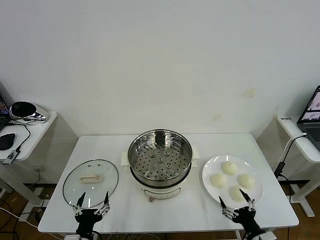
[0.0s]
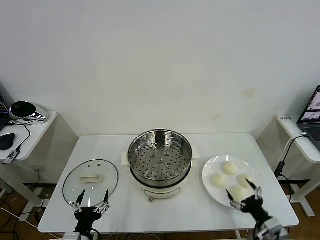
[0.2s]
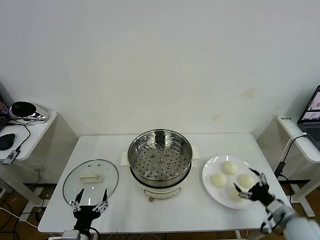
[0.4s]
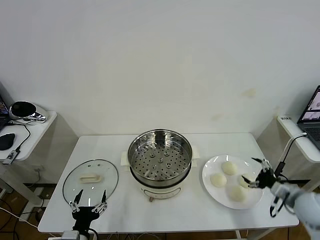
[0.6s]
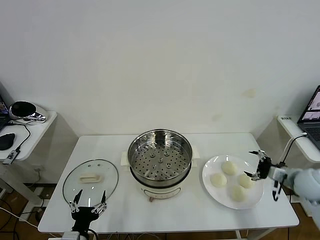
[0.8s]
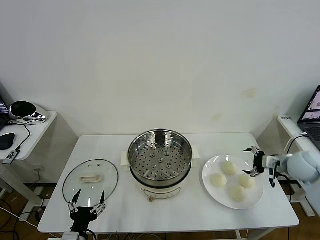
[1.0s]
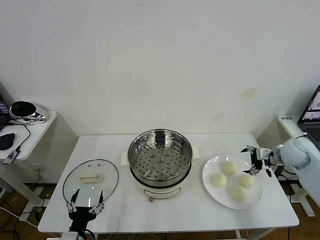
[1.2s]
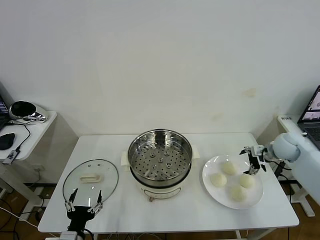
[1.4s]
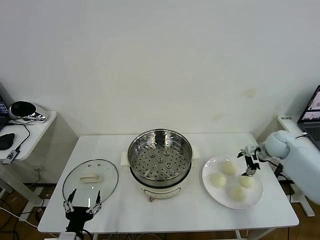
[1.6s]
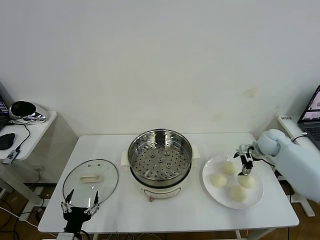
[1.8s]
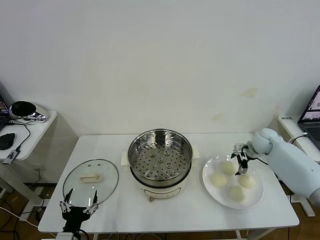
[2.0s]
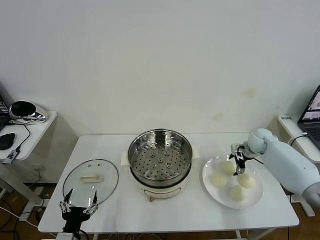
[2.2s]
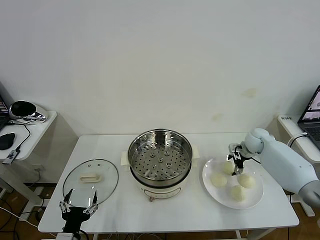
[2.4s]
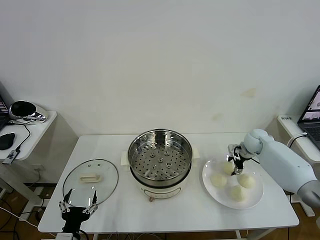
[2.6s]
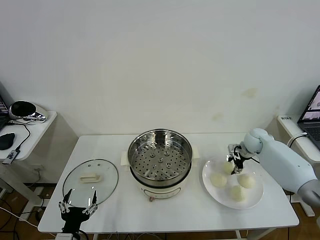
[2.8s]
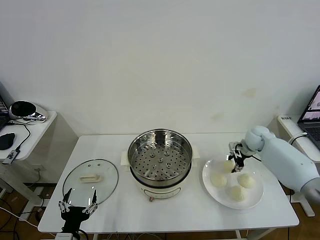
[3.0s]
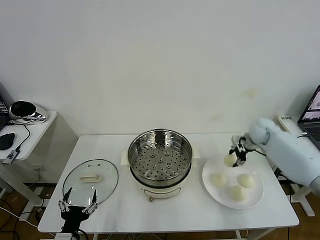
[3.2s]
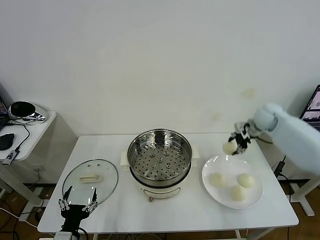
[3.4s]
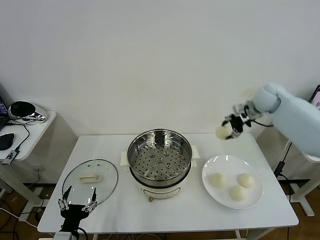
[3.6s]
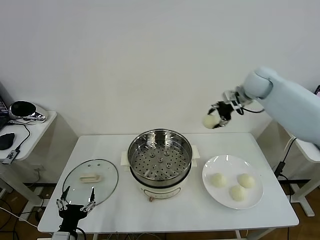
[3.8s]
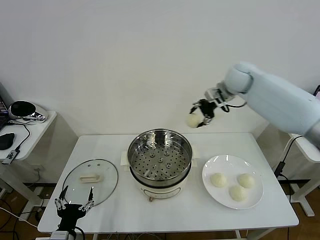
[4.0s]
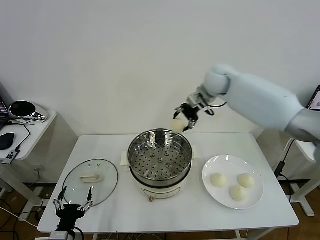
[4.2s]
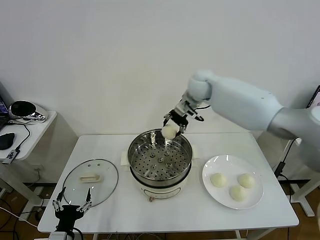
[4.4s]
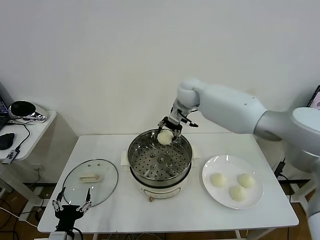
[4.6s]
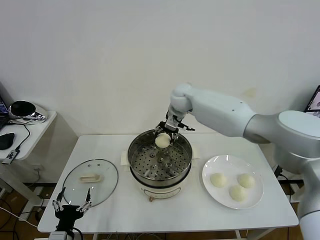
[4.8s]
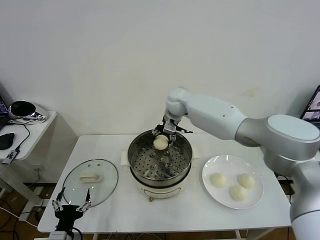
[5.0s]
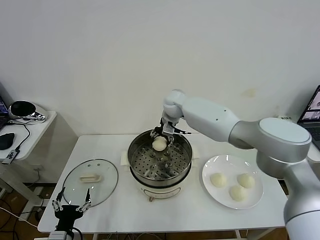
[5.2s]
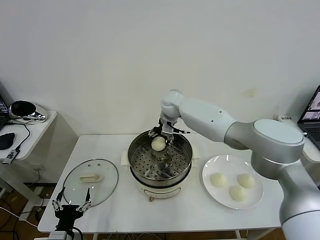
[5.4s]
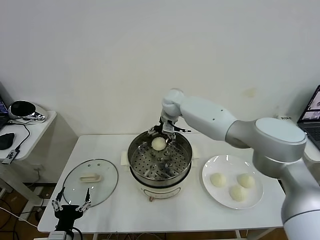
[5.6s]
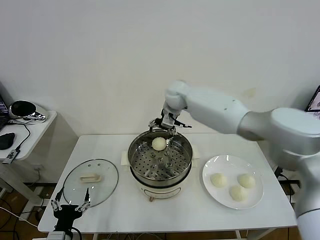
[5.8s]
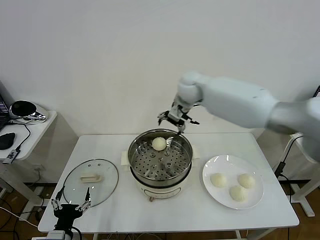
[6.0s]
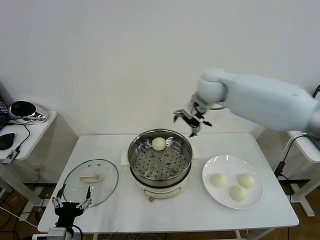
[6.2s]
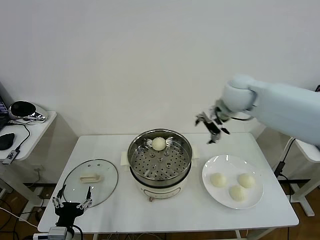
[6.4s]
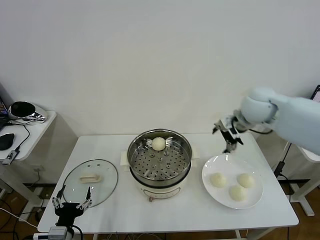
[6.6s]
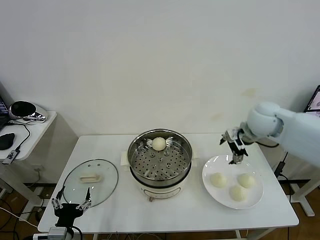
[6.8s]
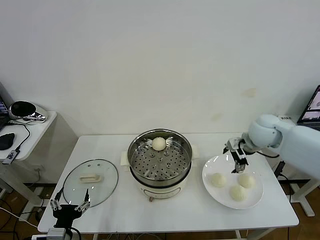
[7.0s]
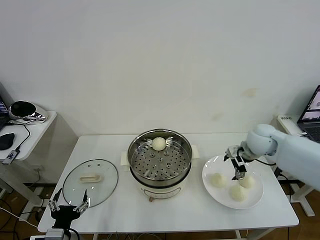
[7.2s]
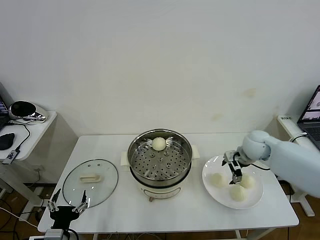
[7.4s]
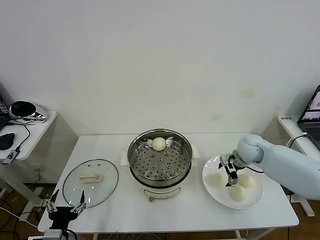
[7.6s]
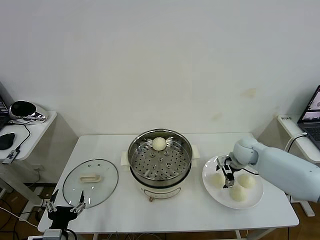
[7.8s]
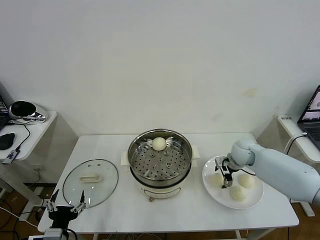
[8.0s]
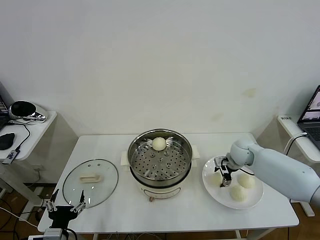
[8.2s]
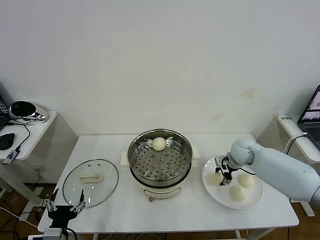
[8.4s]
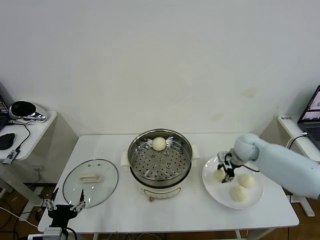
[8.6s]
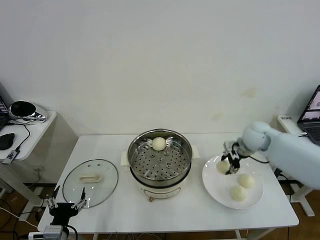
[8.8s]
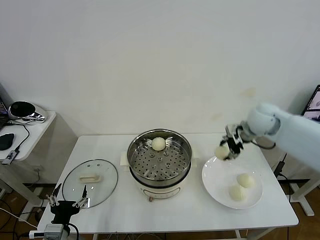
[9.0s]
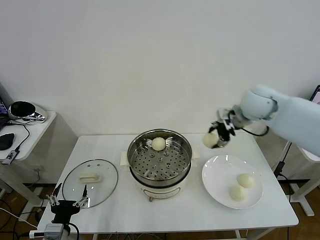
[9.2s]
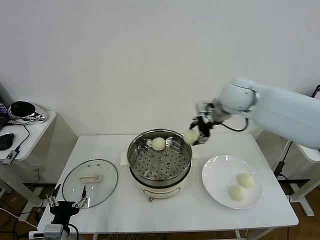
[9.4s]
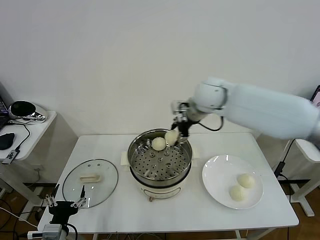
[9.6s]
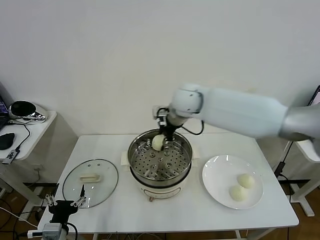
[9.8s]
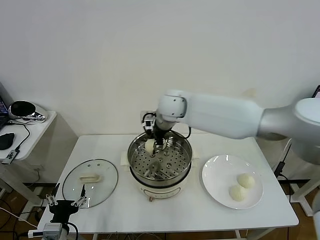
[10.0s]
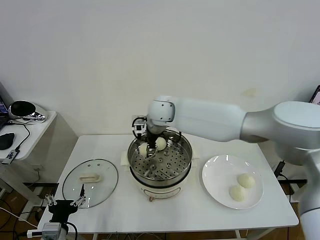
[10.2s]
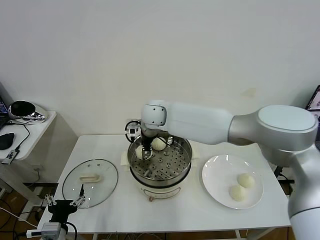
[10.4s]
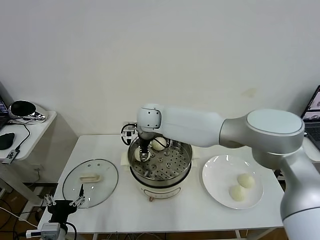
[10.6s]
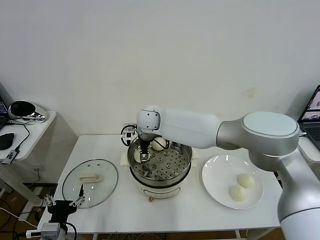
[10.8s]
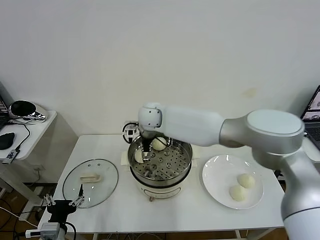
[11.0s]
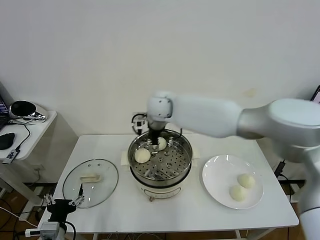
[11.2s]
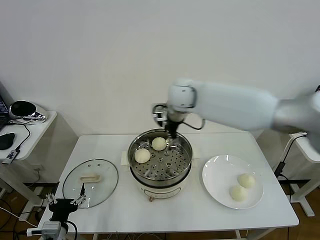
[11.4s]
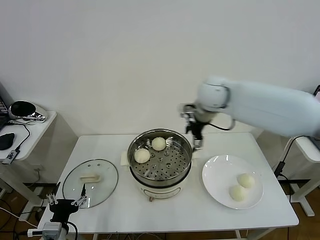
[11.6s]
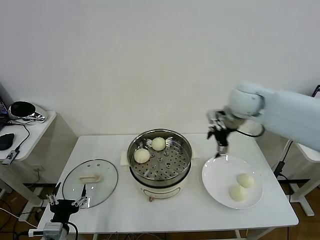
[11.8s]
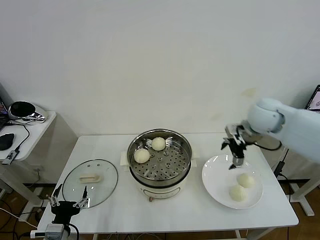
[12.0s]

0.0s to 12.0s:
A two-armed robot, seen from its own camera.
Task of the whole recording: take steamed baozi put them in steamer then cover it.
Step, 0.0s to 2.6s: Grasp the baozi in the plate with right gripper.
Step, 2.8s to 5.6s: Place the baozi on the steamer with right gripper.
Step, 5.8s to 8.2s: Grasp the baozi in the plate with right gripper.
Step, 8.4s to 11.0s: Place the baozi on the steamer with right gripper.
1.6s to 3.0s: The right gripper moves forward, approximately 5 cm, and closes.
3.0s to 4.4s: The right gripper heads to the left and upward, covering about 35 cm.
4.4s to 6.0s: The right gripper reaches some 10 cm downward, then returns, and opens.
6.0s to 7.6s: The right gripper shifts some 30 cm to the right, downward and backward.
7.6s to 9.0s: The right gripper travels upward by about 15 cm, and closes.
9.0s to 10.4s: The right gripper is displaced to the left by approximately 35 cm.
10.4s to 12.0s: The right gripper moves to the right, some 35 cm, and opens.

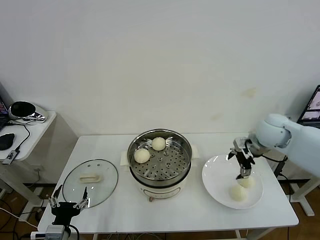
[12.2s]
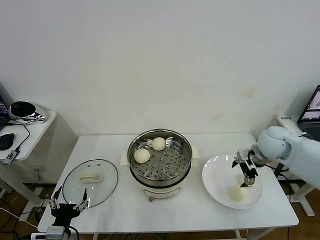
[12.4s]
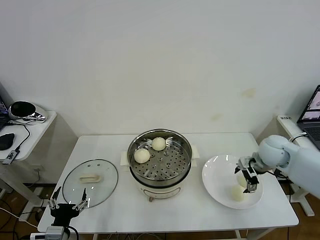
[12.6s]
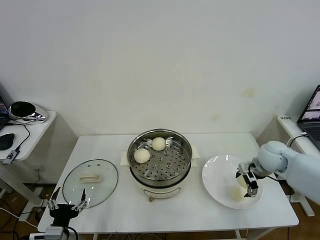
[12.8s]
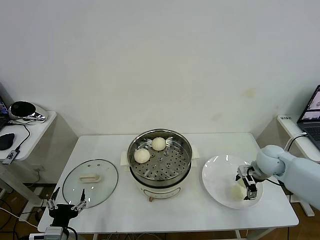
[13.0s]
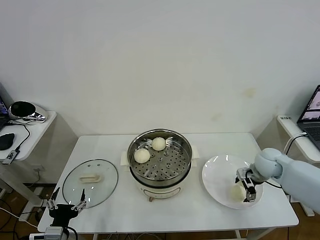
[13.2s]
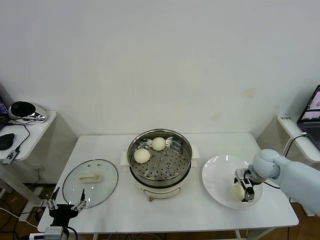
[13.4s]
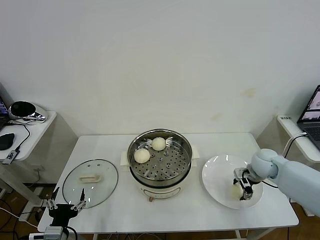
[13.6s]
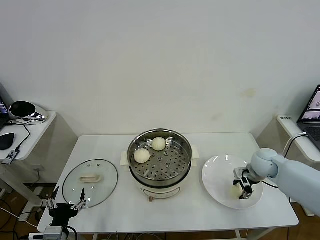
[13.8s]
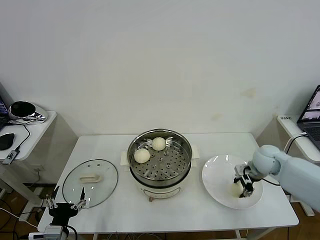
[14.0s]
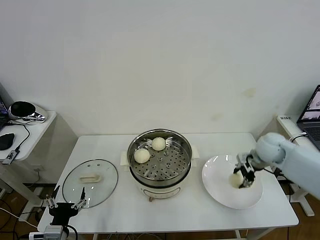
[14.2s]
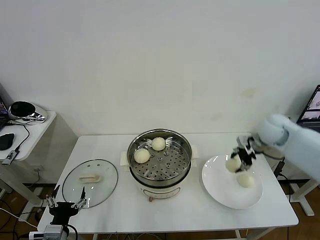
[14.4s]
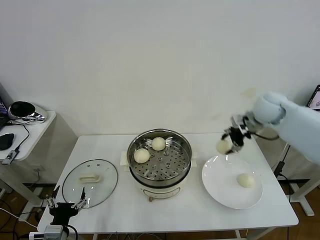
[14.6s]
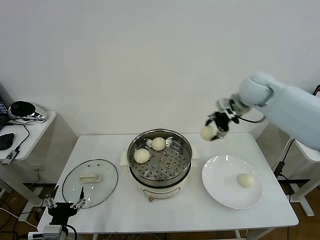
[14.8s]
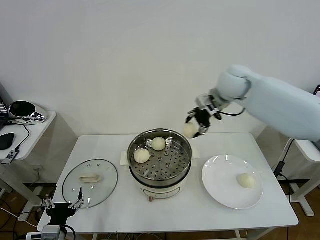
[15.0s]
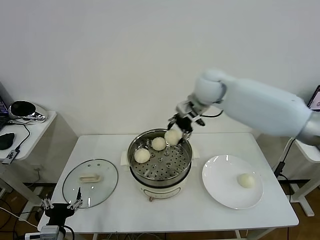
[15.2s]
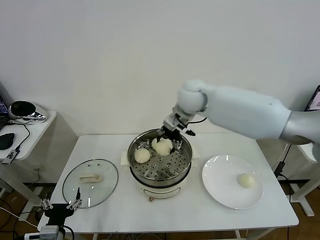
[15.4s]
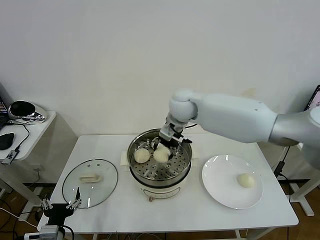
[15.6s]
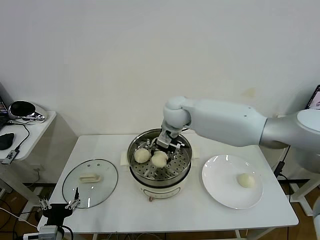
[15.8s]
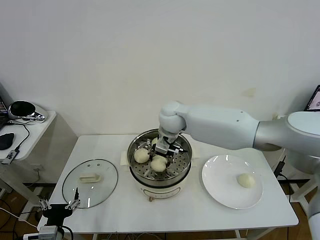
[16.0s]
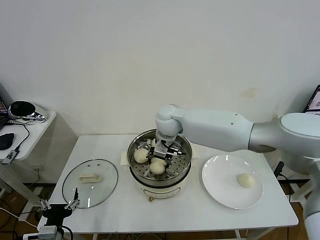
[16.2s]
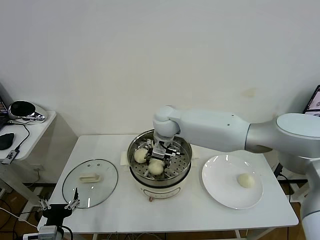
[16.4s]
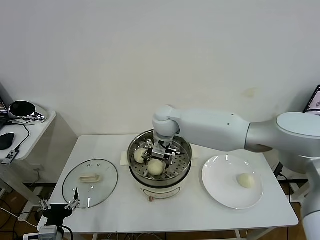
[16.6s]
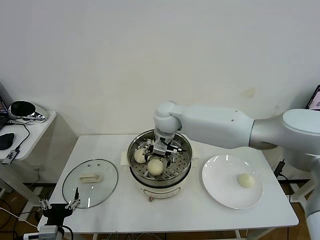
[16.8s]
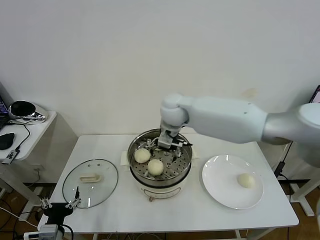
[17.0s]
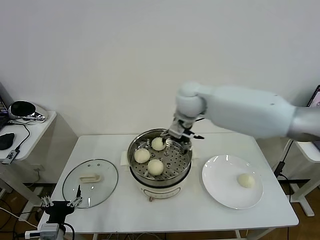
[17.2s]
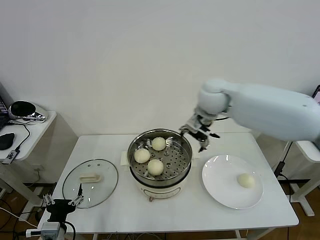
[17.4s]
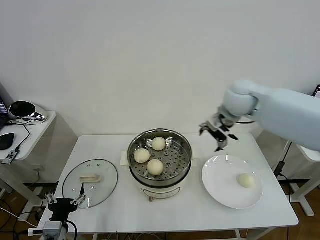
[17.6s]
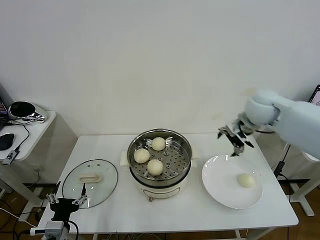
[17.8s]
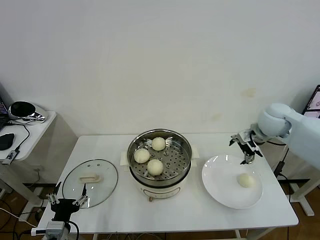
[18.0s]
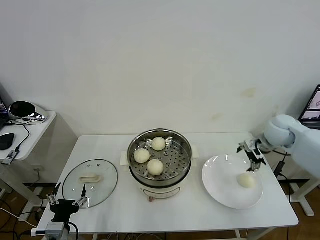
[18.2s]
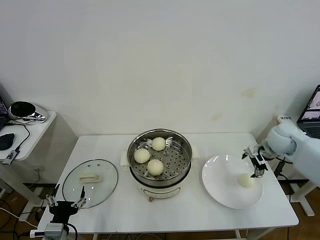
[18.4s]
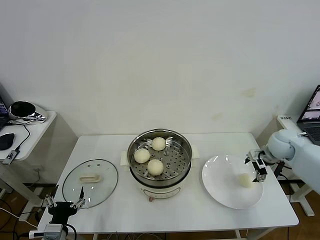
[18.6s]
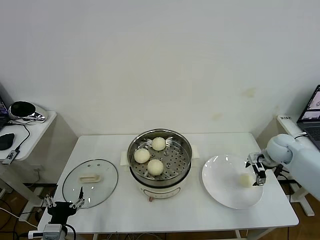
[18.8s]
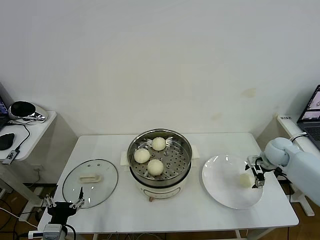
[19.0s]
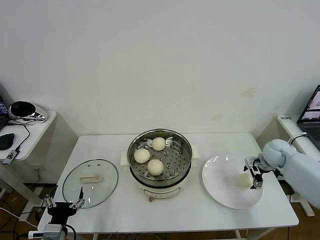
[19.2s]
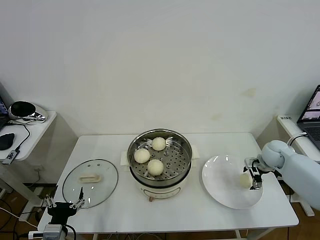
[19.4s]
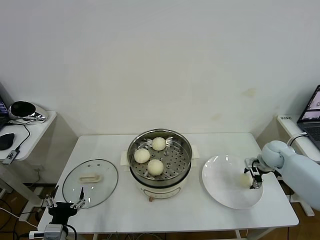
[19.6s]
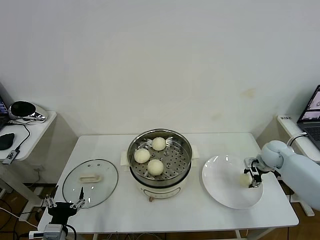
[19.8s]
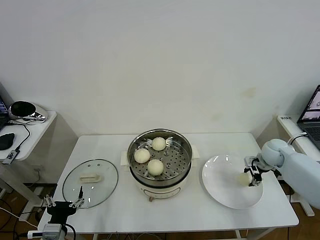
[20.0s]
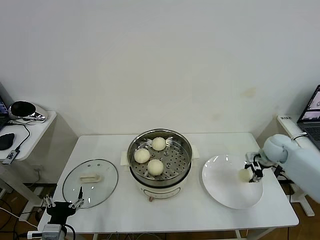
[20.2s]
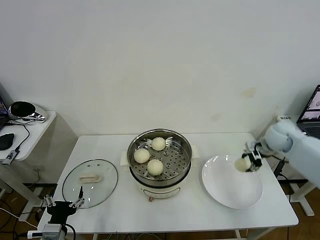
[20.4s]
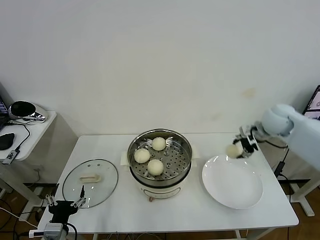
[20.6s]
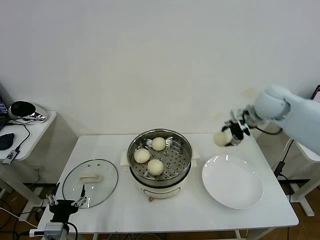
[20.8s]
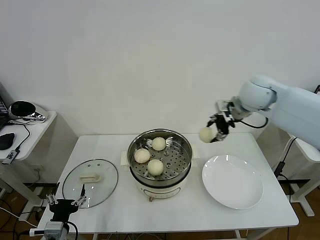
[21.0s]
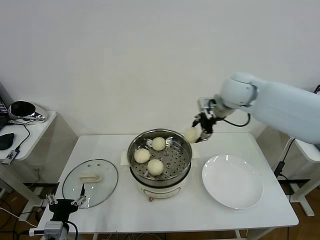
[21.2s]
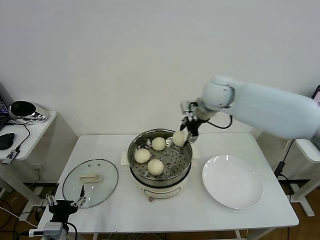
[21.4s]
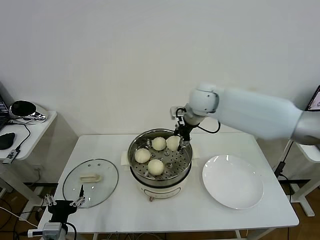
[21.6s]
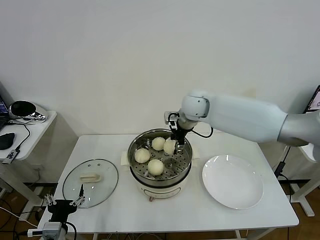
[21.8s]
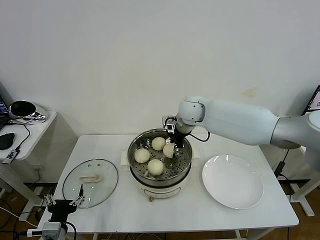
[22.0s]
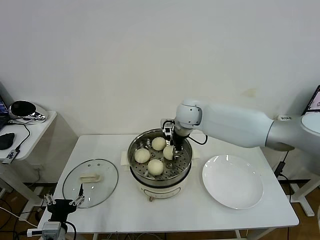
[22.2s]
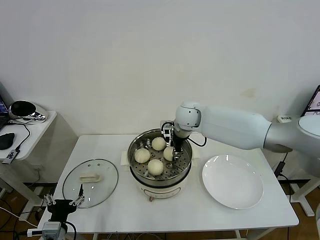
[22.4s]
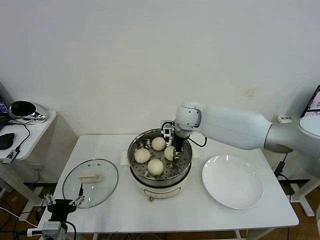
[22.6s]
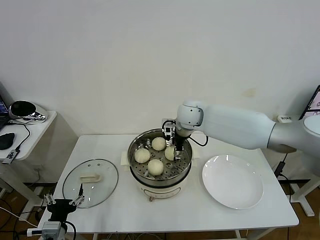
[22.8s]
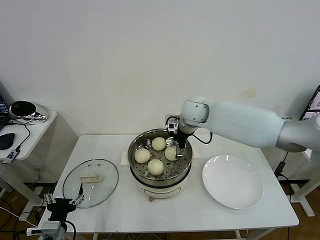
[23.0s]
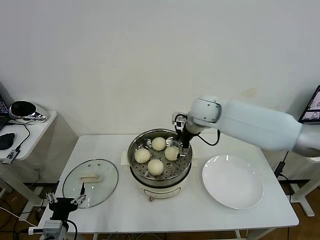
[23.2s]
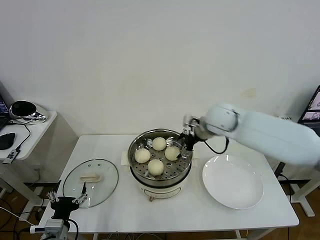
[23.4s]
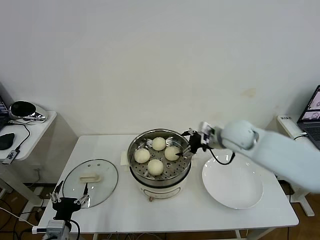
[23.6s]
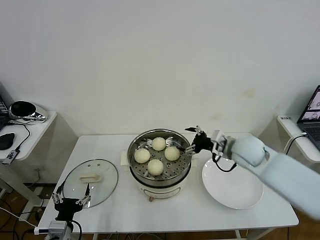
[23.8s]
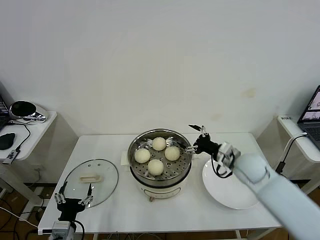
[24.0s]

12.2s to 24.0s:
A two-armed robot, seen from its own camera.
Task of the whole recording: take steamed baozi put them in steamer then cover it.
Step, 12.2s to 13.8s: Grasp the baozi in the plate with right gripper.
Step, 14.0s to 16.8s: Place the baozi on the steamer with right gripper.
Step, 17.0s to 19.8s: Grasp the baozi in the plate with right gripper.
Step, 20.0s to 23.0s: Place the baozi on the steamer with right gripper.
12.2s to 13.6s: The right gripper is displaced downward by some 15 cm, and closes its fingers.
13.6s to 15.2s: The right gripper goes some 35 cm upward, to the left and forward.
15.2s to 16.6s: The right gripper goes about 15 cm to the left and downward, and opens up.
16.6s to 18.2s: The right gripper is displaced to the right by about 35 cm.
18.2s to 19.6s: The right gripper shifts approximately 15 cm downward, and closes up.
19.6s to 21.0s: The right gripper travels upward and to the left by some 30 cm, and closes.
21.0s to 22.6s: The right gripper goes approximately 20 cm to the left and downward.
22.6s to 24.0s: The right gripper travels to the right, backward and downward by approximately 25 cm, and opens.
